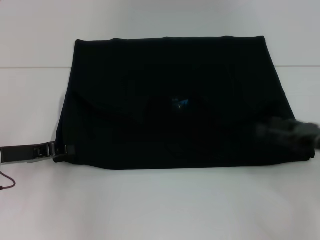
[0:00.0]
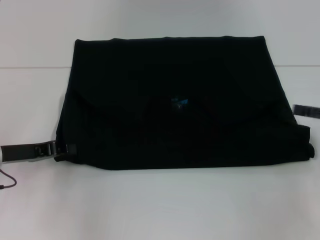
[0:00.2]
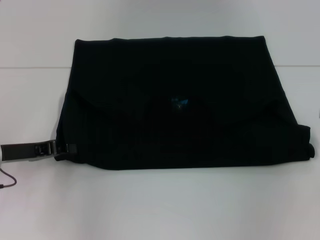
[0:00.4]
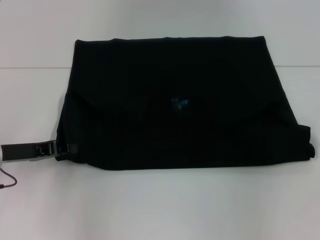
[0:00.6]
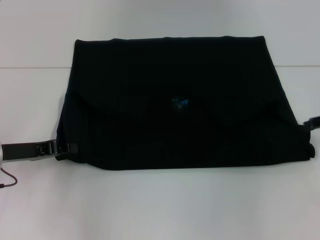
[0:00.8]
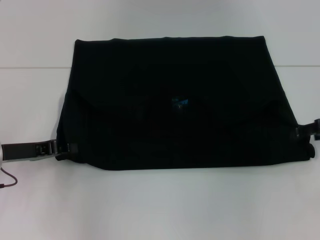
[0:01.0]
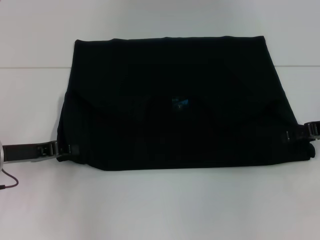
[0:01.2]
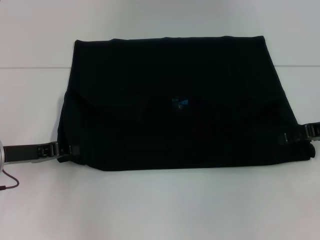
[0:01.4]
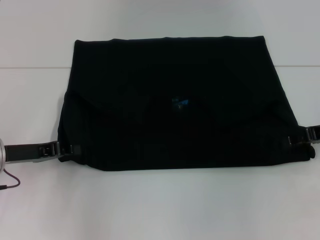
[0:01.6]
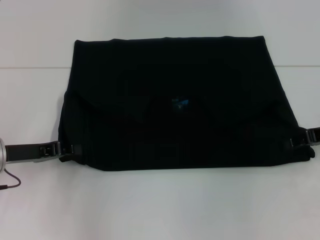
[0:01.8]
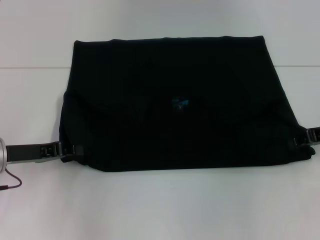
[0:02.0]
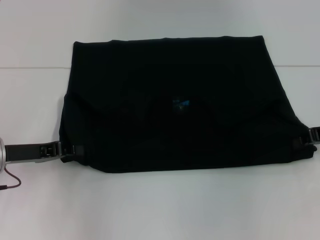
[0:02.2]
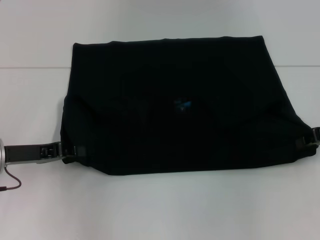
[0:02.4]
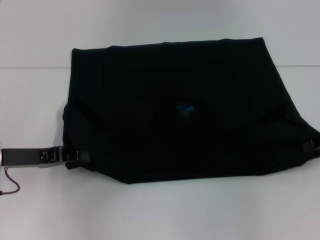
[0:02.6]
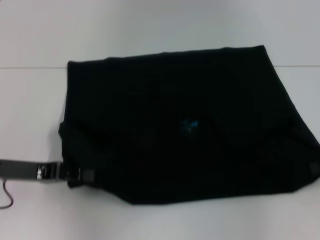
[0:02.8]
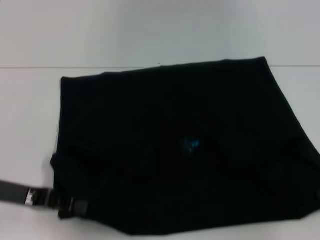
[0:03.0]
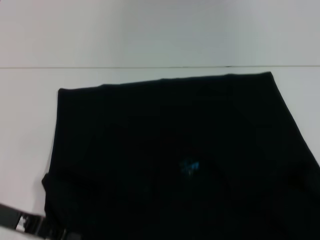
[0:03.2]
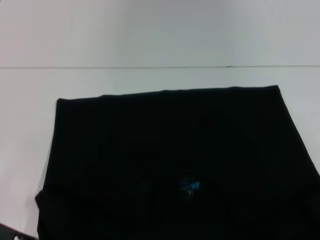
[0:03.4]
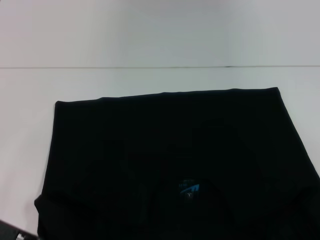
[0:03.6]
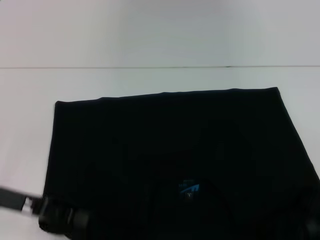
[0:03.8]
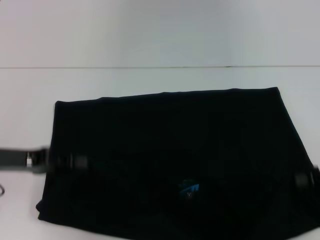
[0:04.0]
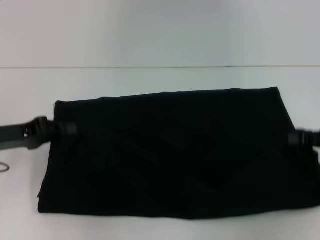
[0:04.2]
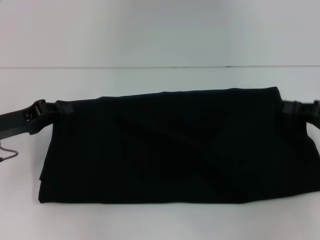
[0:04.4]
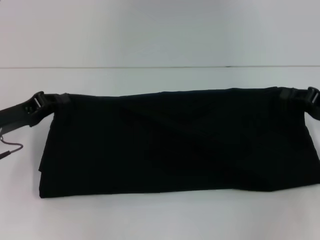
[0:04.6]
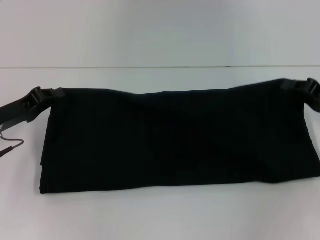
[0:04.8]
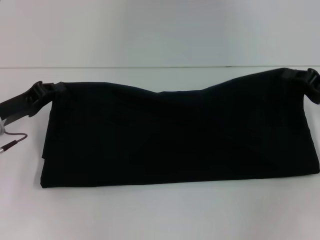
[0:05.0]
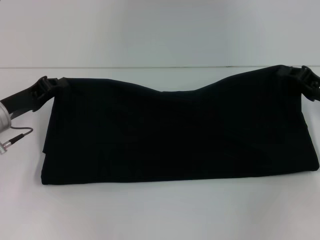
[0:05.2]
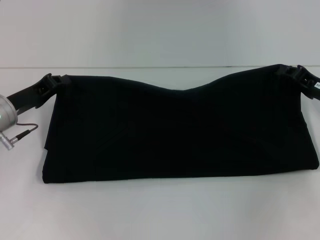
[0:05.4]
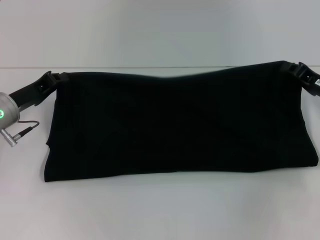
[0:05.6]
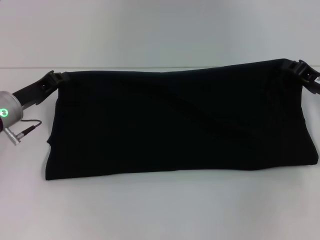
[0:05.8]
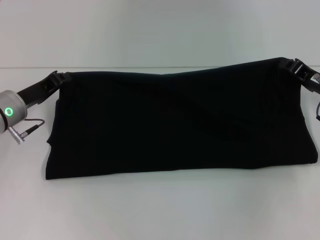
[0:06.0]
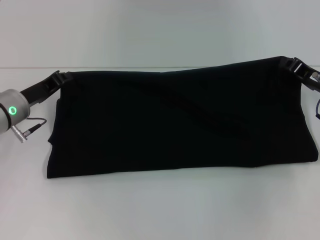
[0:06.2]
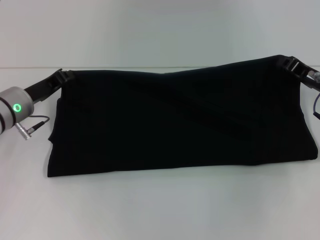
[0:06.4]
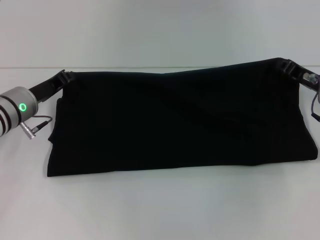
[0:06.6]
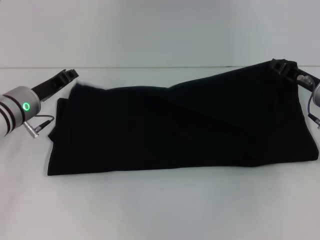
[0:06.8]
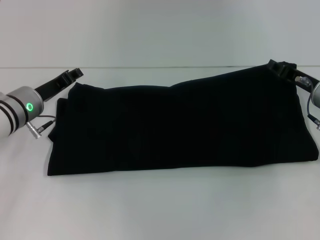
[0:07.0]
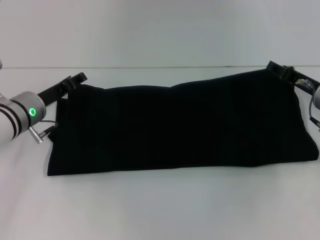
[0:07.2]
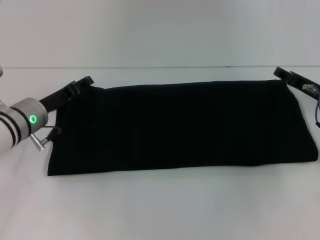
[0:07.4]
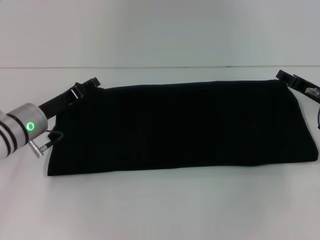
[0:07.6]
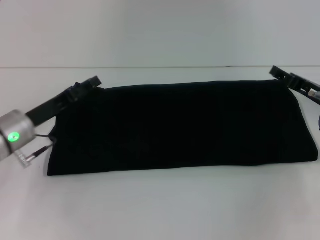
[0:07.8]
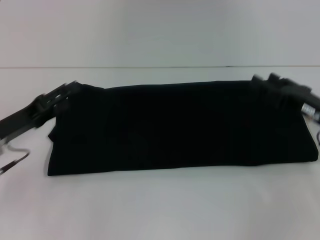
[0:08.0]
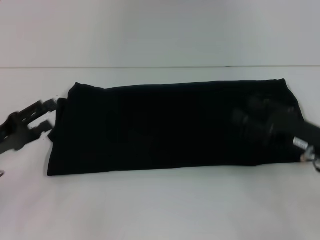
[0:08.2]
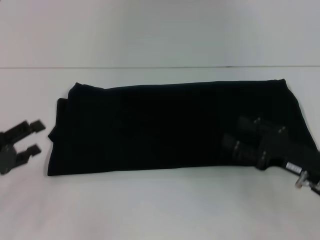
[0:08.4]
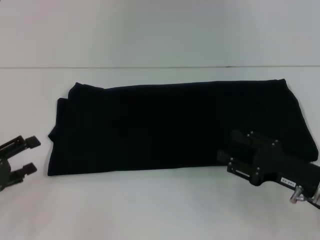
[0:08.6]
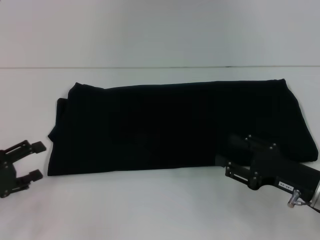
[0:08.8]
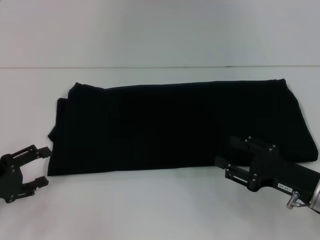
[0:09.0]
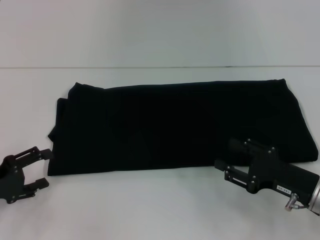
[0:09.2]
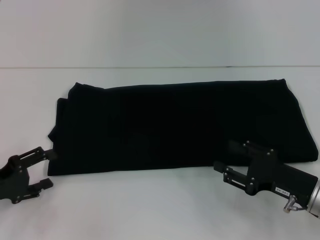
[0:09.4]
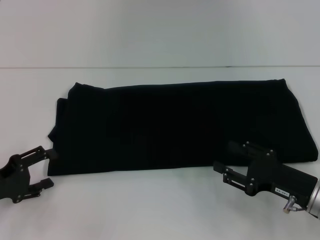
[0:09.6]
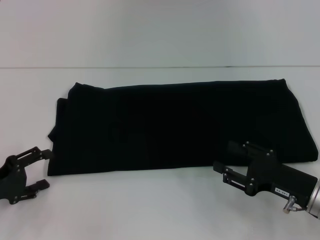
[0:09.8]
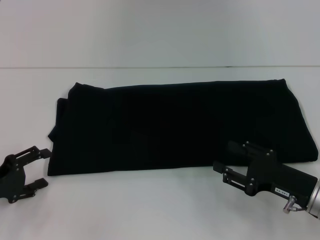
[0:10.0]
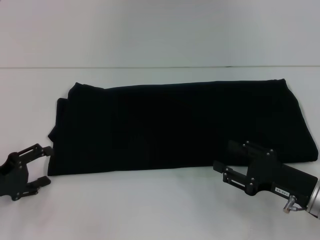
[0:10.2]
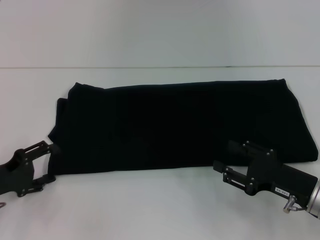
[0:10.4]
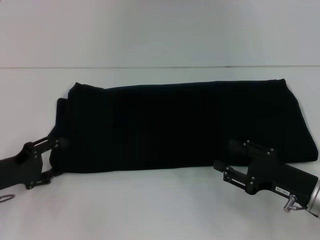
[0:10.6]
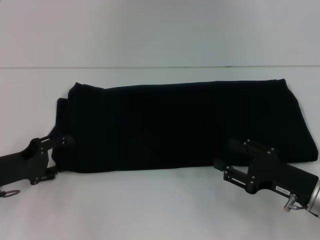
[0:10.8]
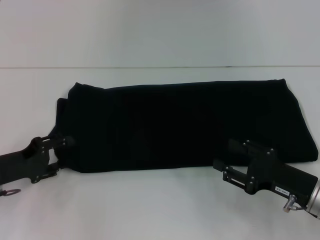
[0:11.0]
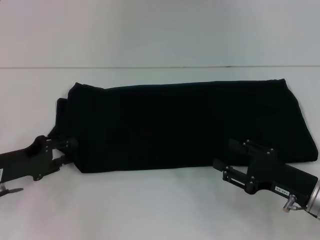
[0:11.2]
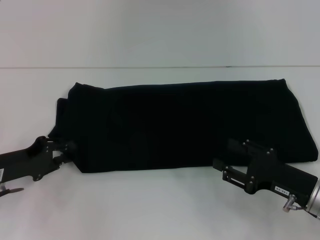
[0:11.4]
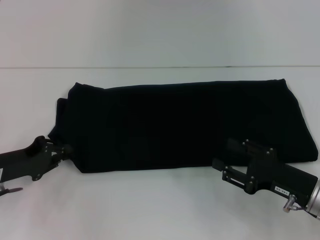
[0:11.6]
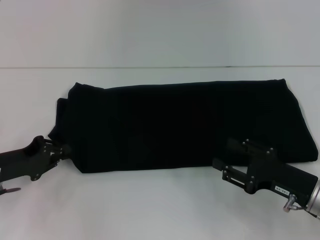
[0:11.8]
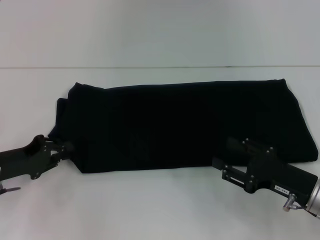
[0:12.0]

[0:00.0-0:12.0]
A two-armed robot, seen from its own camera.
Step, 0:00.0 to 0:03.6: Pull the clothes with your left hand.
Step, 0:00.0 to 0:03.6: Pull the clothes with your right hand.
Step, 0:03.8 to 0:07.4: Fold the clothes with your right hand.
0:00.0 to 0:01.6: The right gripper is displaced forward by some 5 cm.
0:01.6 to 0:03.0: The left gripper shifts by roughly 5 cm, while the right gripper travels backward by some 5 cm, and closes up.
0:03.0 to 0:04.4: The left gripper moves forward, some 5 cm.
0:04.4 to 0:06.0: The right gripper travels forward and to the left by about 10 cm, while the left gripper shifts roughly 5 cm forward.
0:06.0 to 0:07.6: The left gripper opens up. Meanwhile the right gripper opens its fingers.
0:07.6 to 0:09.0: The right gripper goes about 15 cm backward. The left gripper shifts roughly 15 cm backward and to the left.
0:09.0 to 0:10.4: The grippers stay close to where they were, moving slightly.
0:10.4 to 0:12.0: The left gripper closes.

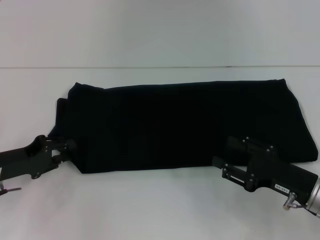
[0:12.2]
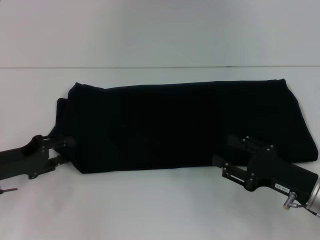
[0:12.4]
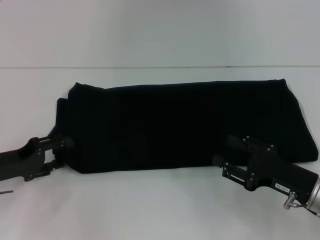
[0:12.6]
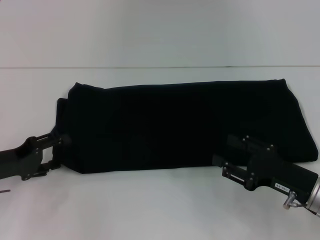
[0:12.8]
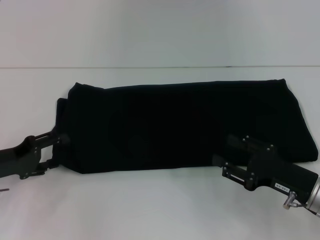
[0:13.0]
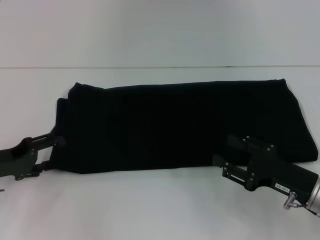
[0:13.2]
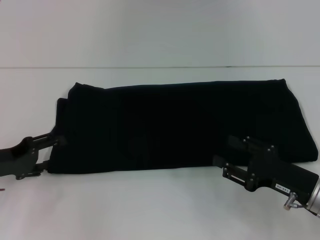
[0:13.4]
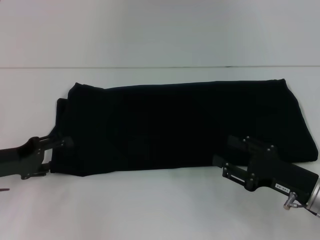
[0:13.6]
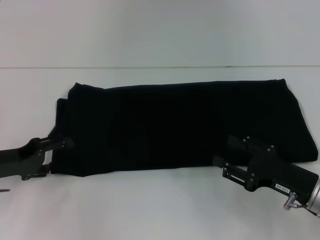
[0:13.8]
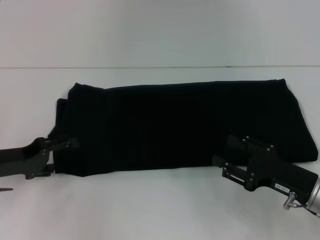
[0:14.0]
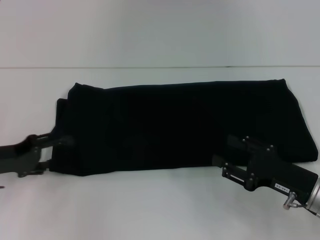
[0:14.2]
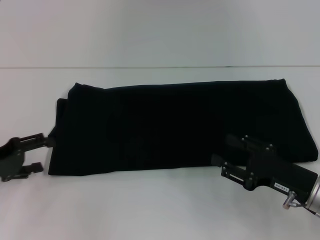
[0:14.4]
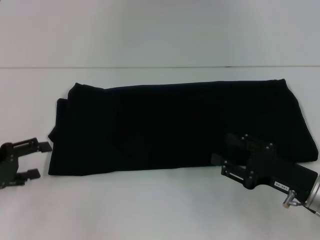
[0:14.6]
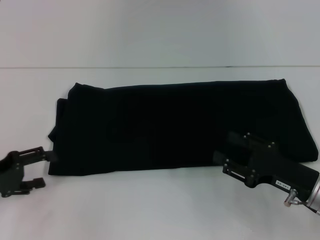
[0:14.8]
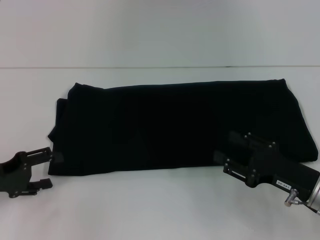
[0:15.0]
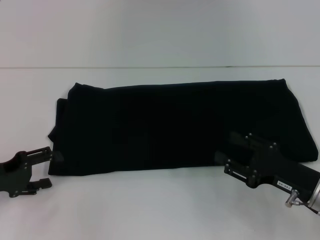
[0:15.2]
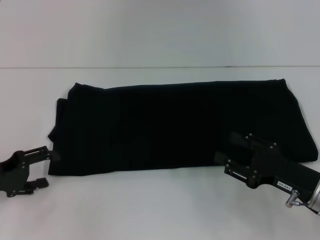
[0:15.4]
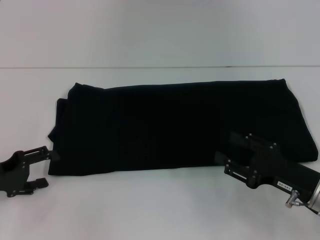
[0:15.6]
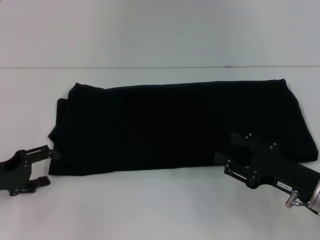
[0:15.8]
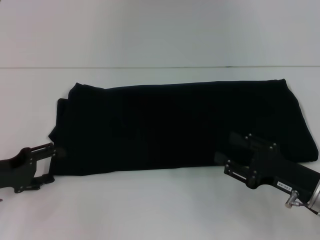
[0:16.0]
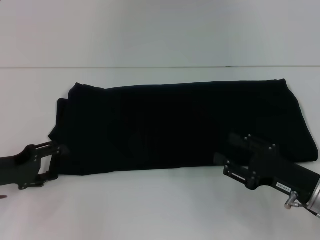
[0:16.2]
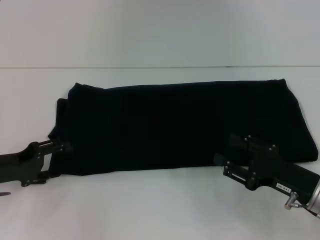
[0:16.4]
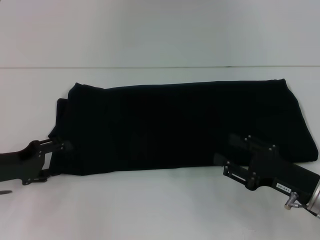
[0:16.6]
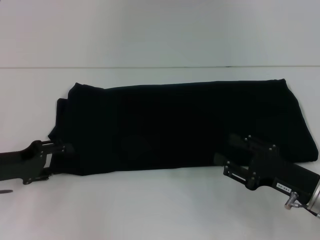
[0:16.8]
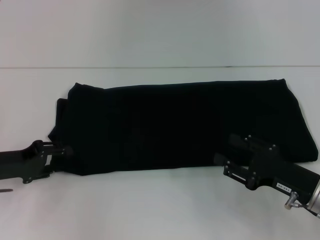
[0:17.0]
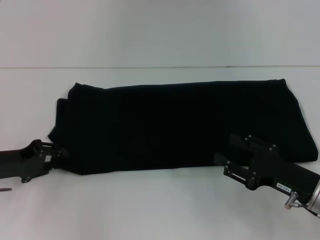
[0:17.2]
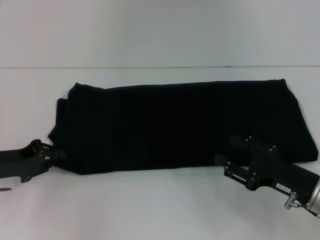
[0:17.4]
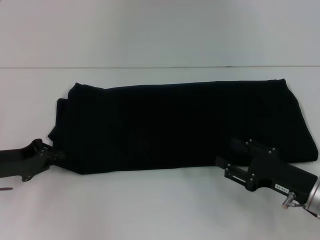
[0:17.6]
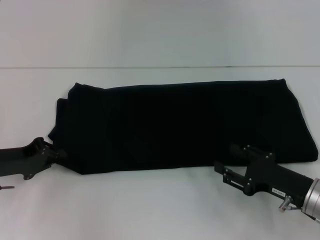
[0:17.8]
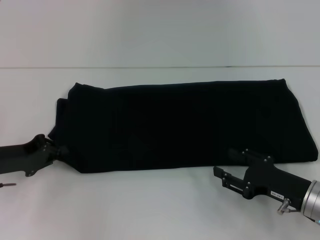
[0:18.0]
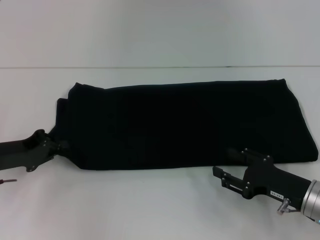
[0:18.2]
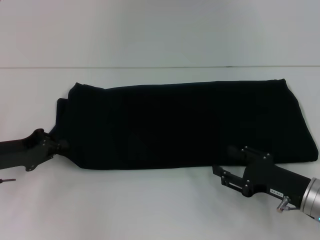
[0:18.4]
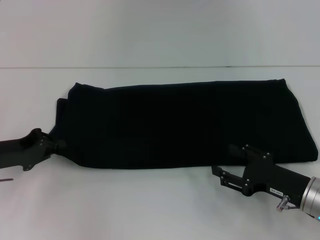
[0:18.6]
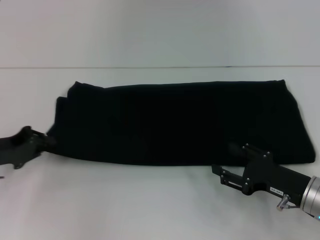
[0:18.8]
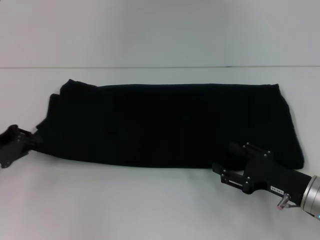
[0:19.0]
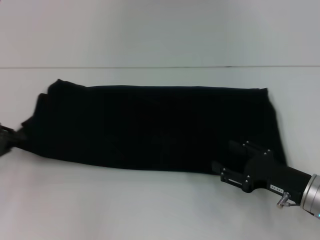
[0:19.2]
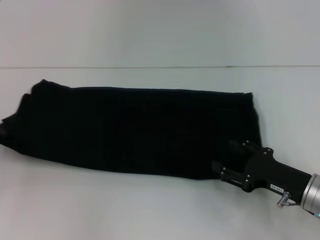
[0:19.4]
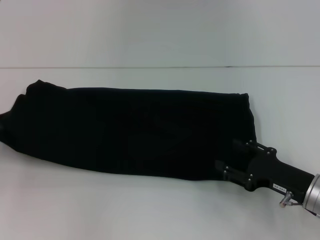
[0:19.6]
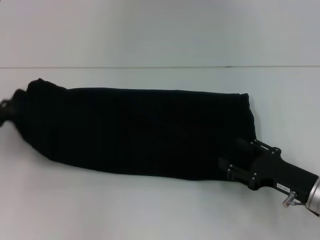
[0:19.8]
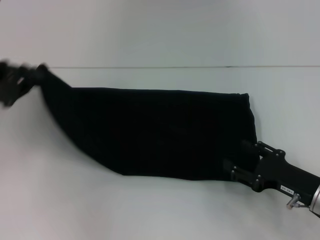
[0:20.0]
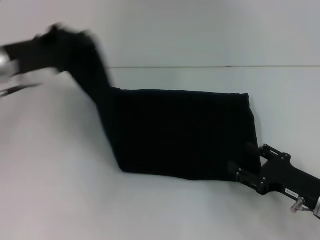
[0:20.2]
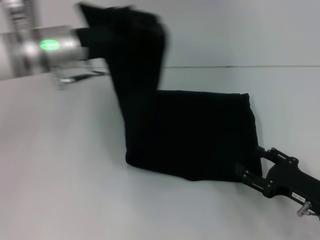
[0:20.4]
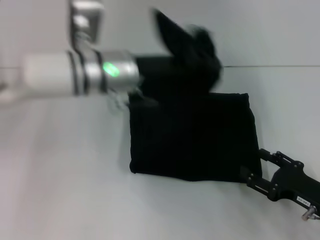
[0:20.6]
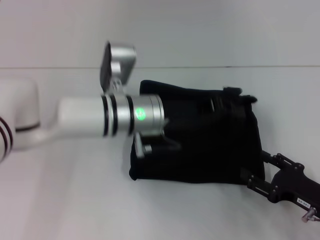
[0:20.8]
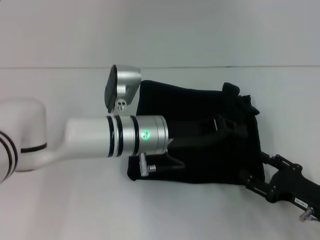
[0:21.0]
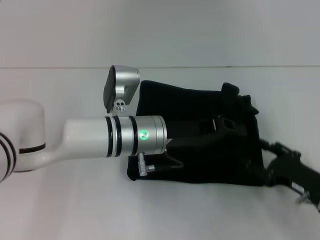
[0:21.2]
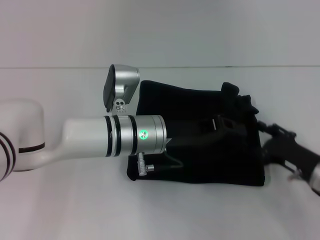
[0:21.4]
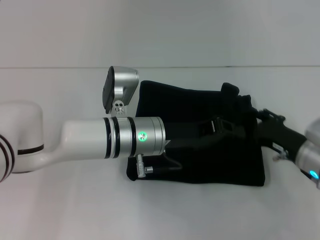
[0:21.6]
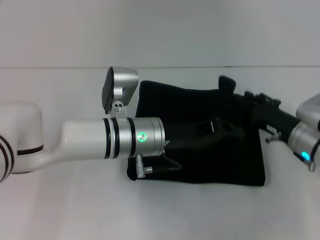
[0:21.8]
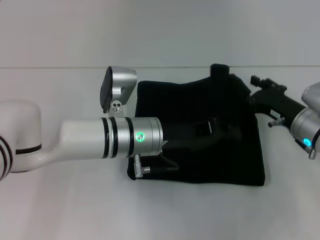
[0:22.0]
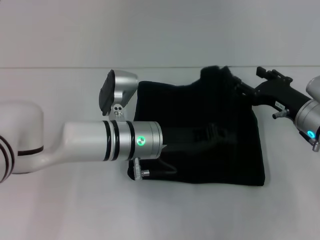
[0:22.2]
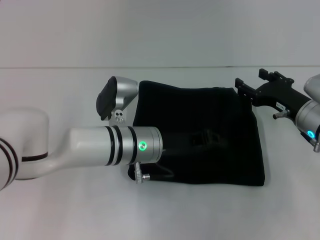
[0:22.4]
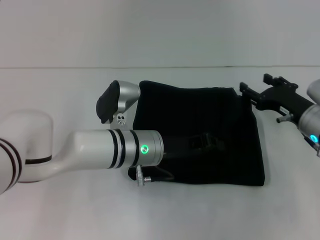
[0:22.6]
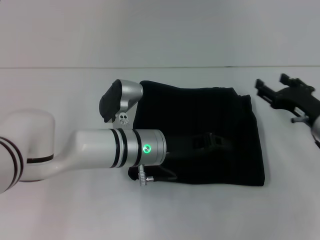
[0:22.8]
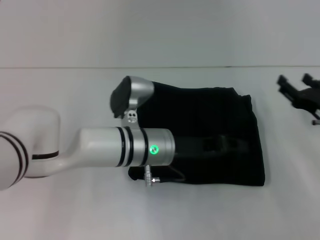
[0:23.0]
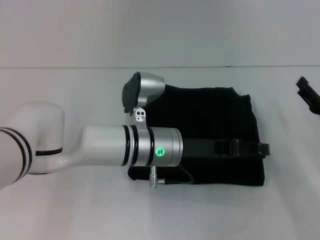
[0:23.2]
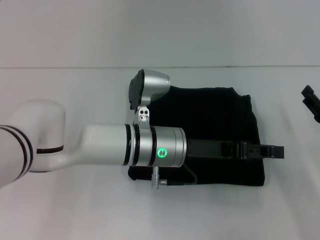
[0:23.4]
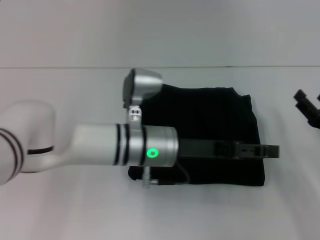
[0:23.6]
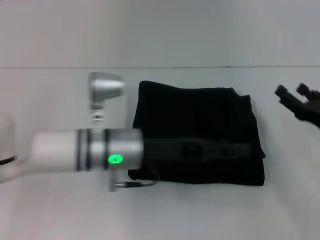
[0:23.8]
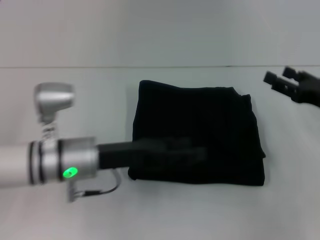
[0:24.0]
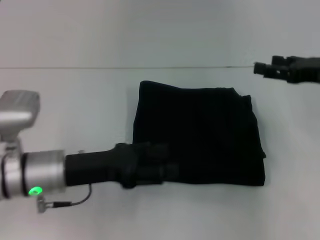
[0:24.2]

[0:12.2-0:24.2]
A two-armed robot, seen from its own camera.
Step, 0:12.2 to 0:23.0: Fold the clothes with your left hand.
0:12.2 to 0:13.8: The left gripper opens its fingers.
0:13.8 to 0:16.6: The grippers stay close to where they were, moving slightly.
0:16.6 to 0:18.2: The left gripper closes up.
0:18.2 to 0:19.8: The left gripper moves to the left and upward, about 10 cm.
0:19.8 to 0:21.2: The left gripper goes approximately 30 cm to the right.
0:21.2 to 0:22.6: The right gripper travels forward by some 10 cm.
0:22.6 to 0:24.2: The left gripper shifts some 15 cm to the left and backward, and opens up; the right gripper shifts roughly 10 cm upward.
